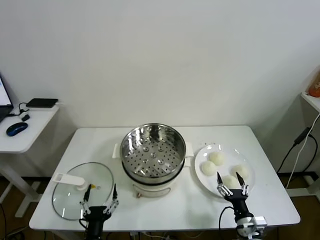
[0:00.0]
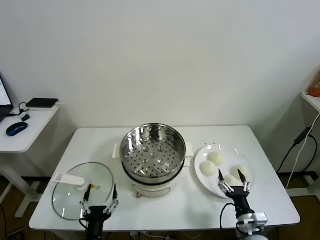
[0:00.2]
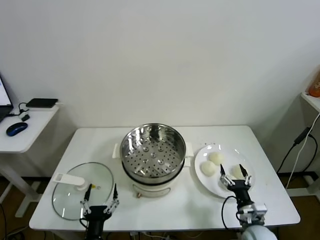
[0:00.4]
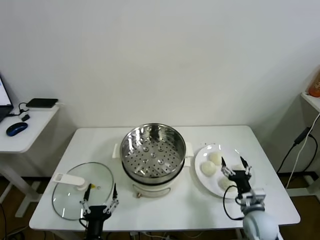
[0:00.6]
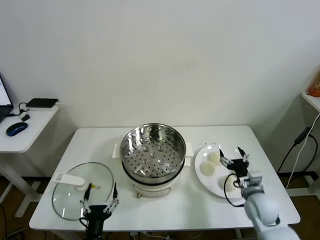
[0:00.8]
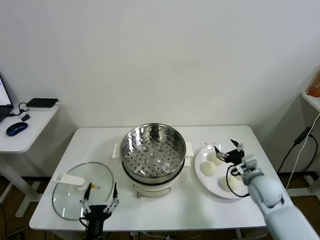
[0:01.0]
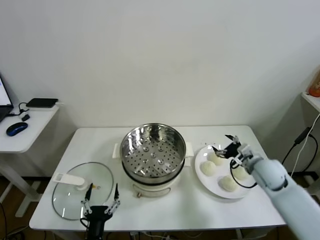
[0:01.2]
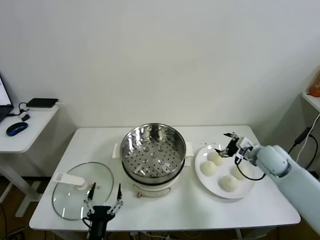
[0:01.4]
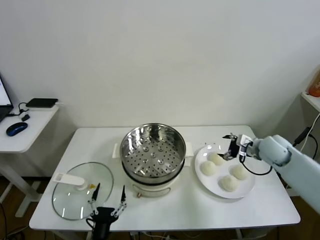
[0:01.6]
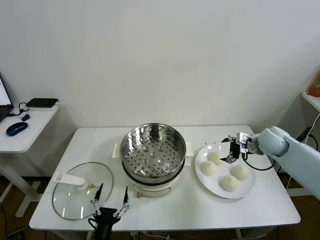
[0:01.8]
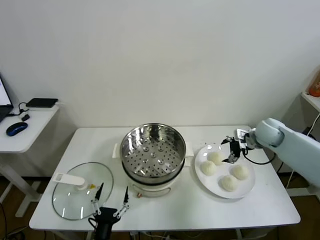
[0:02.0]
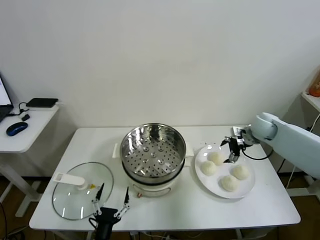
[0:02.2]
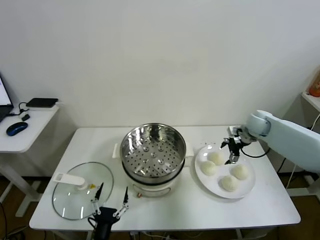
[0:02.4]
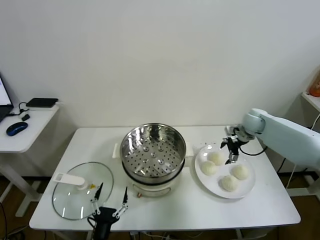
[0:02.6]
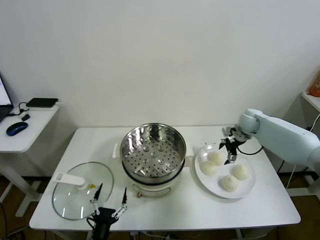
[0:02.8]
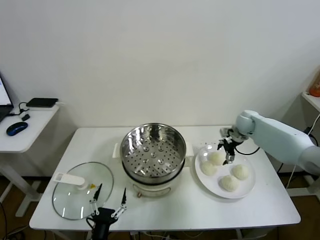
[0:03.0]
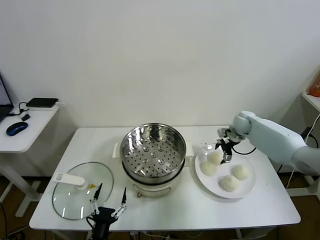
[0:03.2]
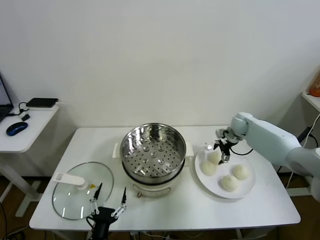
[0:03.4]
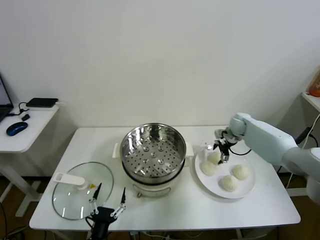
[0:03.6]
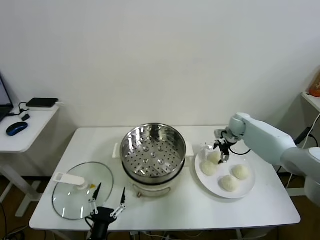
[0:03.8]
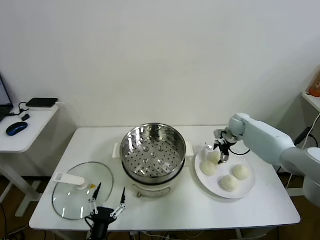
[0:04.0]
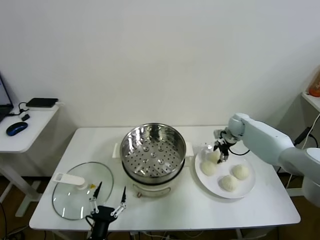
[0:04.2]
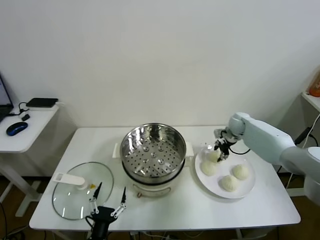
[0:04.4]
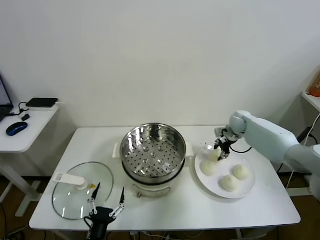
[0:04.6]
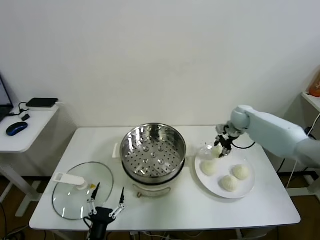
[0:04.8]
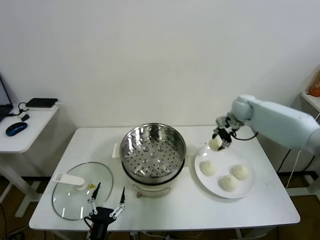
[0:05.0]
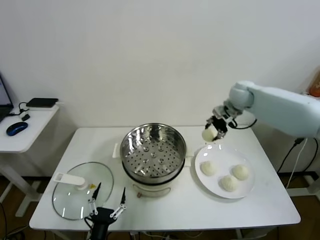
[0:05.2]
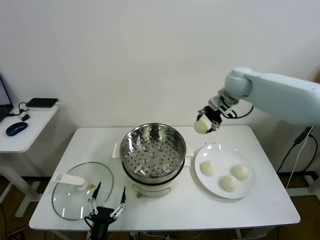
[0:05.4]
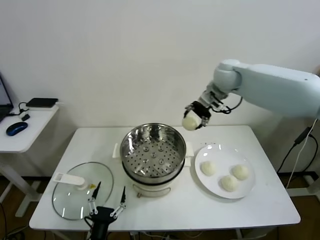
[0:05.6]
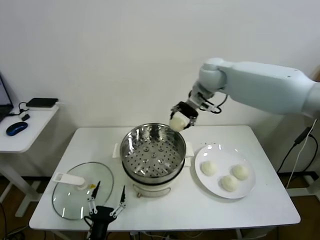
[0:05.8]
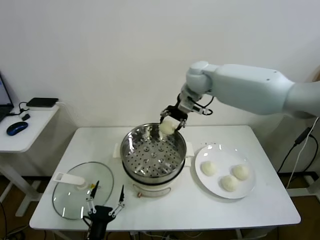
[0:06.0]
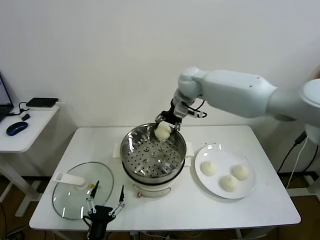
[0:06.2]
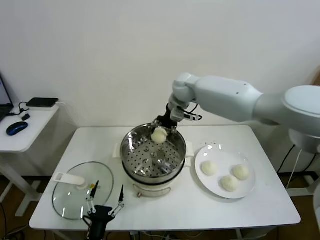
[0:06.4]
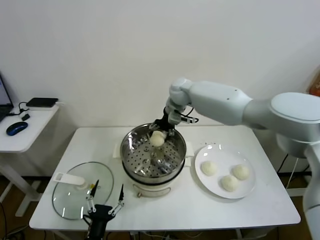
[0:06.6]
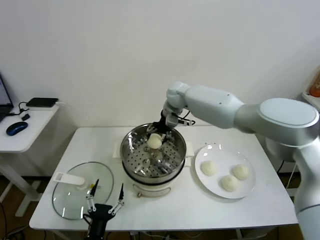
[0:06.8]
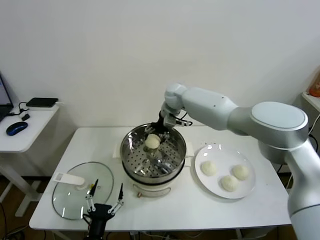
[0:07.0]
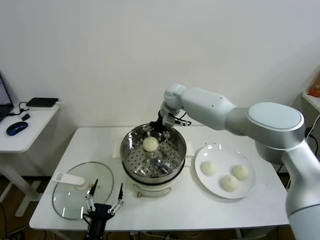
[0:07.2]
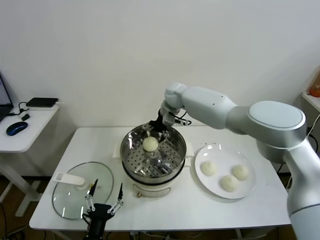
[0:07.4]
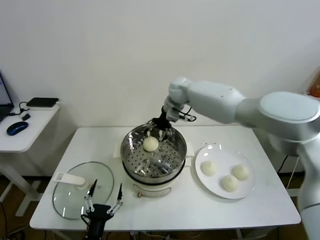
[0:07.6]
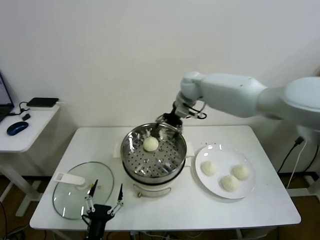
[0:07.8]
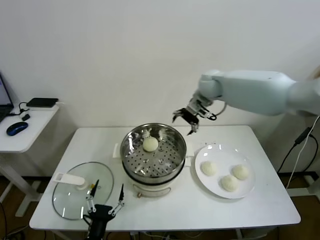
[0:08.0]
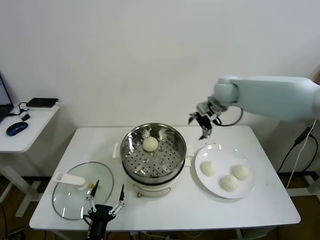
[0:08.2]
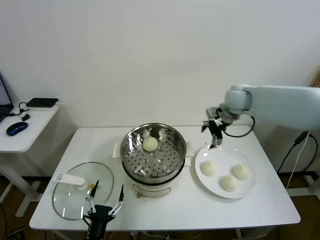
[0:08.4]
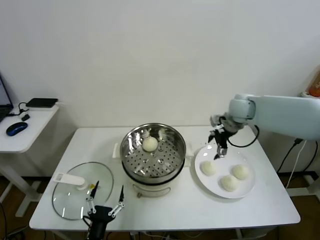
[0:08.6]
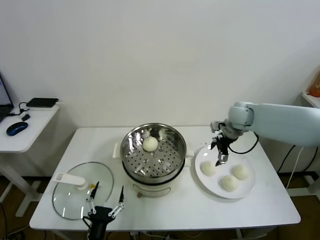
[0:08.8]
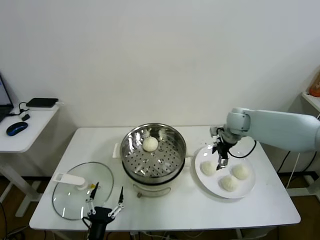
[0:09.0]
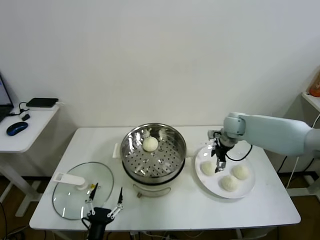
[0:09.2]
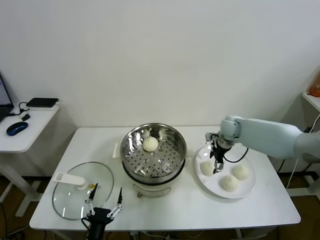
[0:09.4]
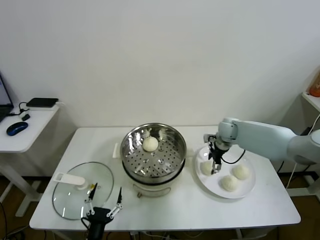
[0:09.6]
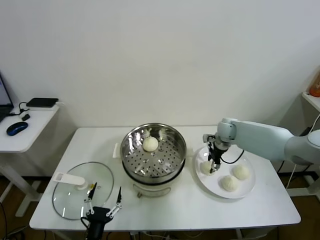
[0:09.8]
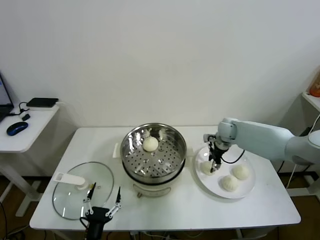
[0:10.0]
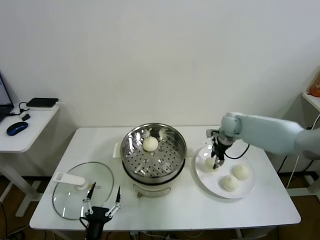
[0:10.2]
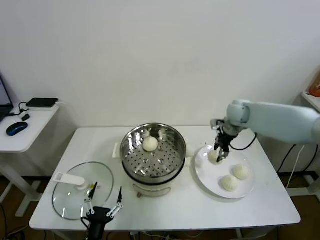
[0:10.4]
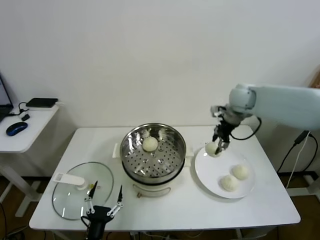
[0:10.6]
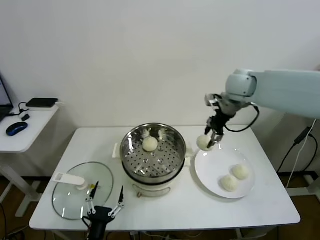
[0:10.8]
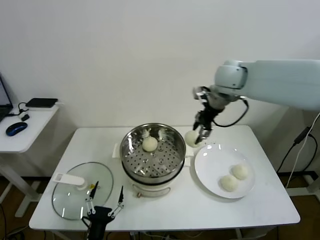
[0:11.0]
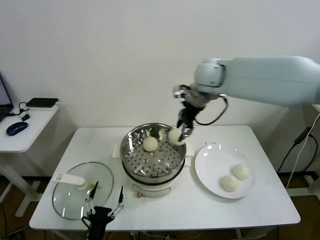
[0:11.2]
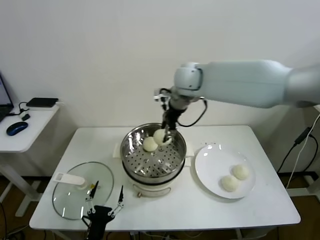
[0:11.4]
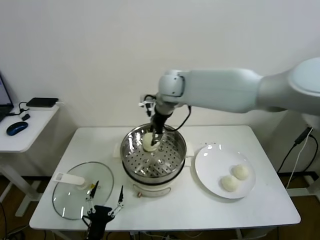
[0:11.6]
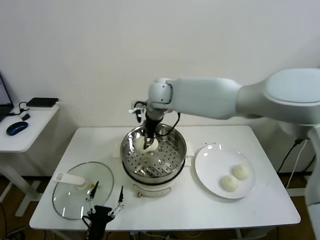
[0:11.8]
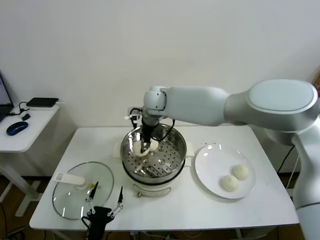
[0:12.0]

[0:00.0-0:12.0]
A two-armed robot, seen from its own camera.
Task of the whole recording: take steamed baozi put them in steamer.
Step, 0:00.0 to 0:04.4: Grasp the baozi in the plate with right gripper.
Step, 0:04.6 to 0:07.2: Place the baozi on the steamer with right gripper.
Step, 0:07.4 to 0:09.8: Grasp the baozi in the plate with right gripper.
0:01.6 to 0:03.0: The right gripper is displaced forward by about 15 cm.
0:03.0 to 0:04.4: The right gripper closes its fingers.
0:04.4 to 0:06.0: The right gripper travels to the left and upward by approximately 30 cm, and opens its fingers.
0:06.0 to 0:07.6: The right gripper opens.
0:07.6 to 0:09.0: The right gripper shifts about 25 cm to the right and downward.
0:09.0 to 0:10.4: The right gripper heads upward, covering approximately 5 cm, and closes.
0:10.4 to 0:12.0: The right gripper moves to the left, approximately 30 cm.

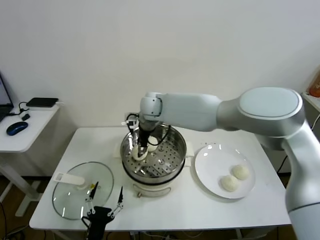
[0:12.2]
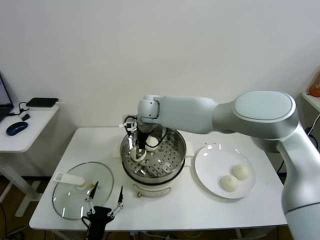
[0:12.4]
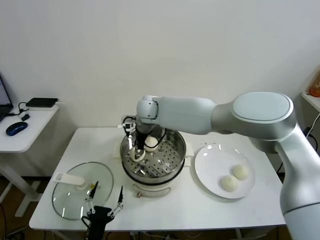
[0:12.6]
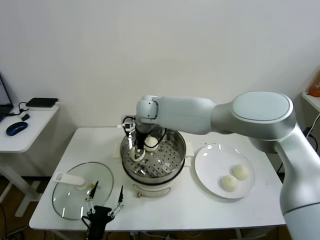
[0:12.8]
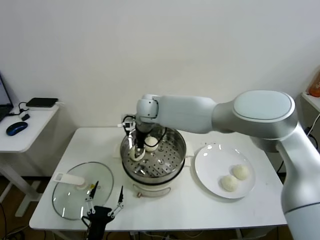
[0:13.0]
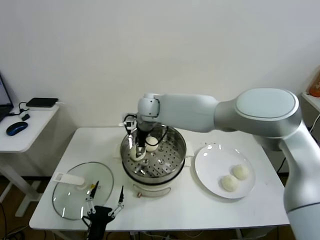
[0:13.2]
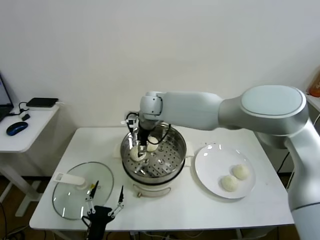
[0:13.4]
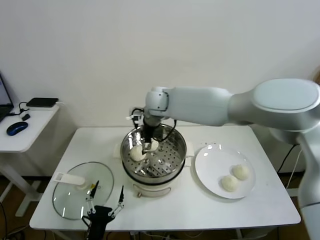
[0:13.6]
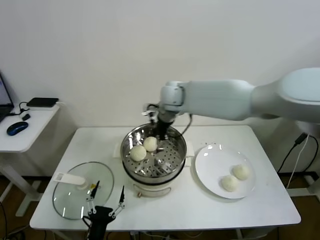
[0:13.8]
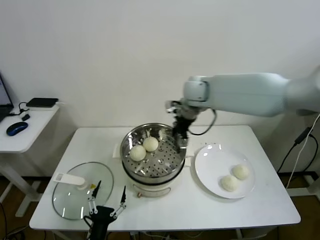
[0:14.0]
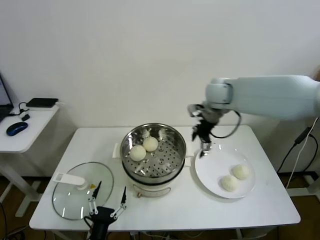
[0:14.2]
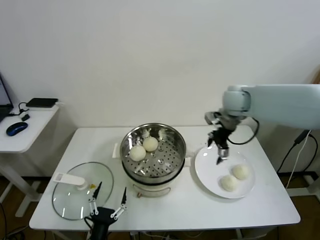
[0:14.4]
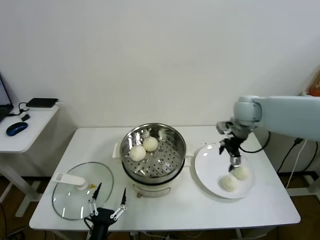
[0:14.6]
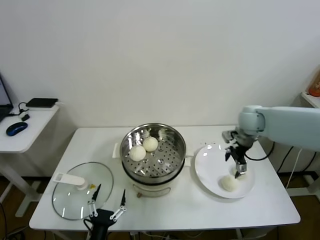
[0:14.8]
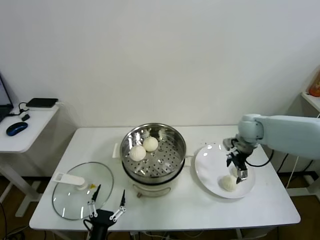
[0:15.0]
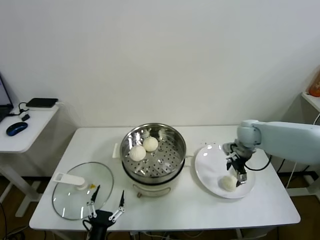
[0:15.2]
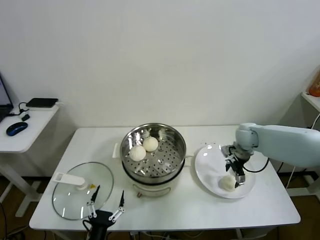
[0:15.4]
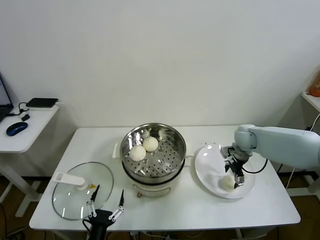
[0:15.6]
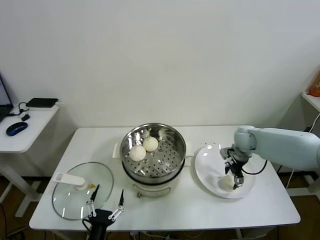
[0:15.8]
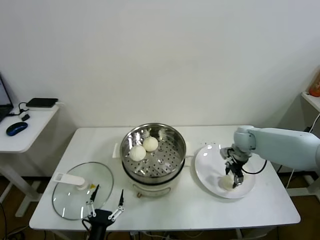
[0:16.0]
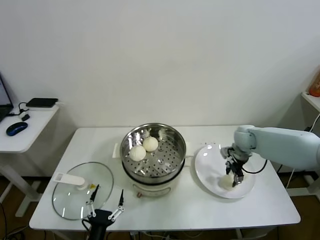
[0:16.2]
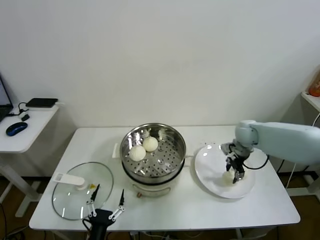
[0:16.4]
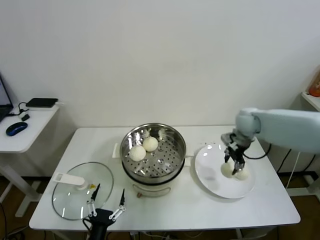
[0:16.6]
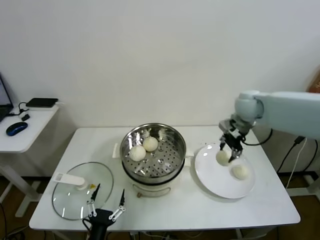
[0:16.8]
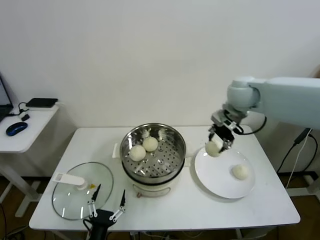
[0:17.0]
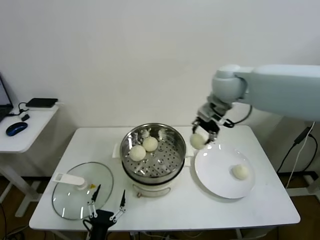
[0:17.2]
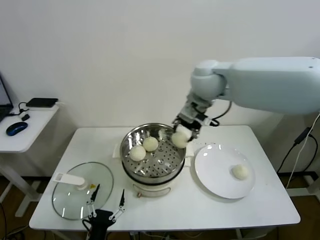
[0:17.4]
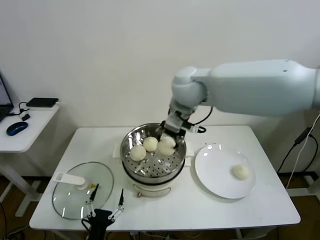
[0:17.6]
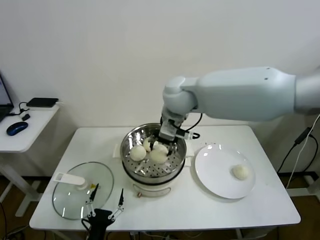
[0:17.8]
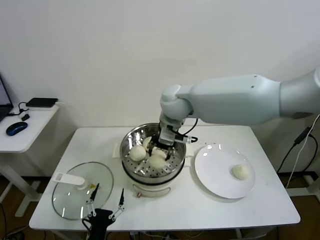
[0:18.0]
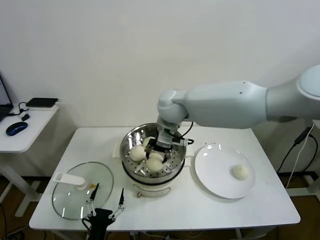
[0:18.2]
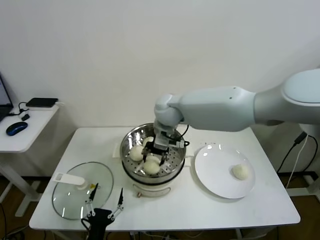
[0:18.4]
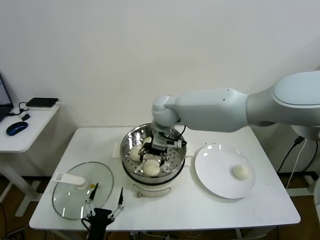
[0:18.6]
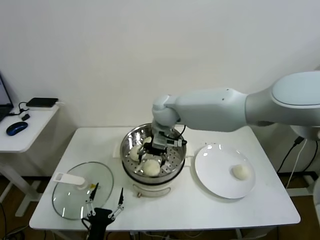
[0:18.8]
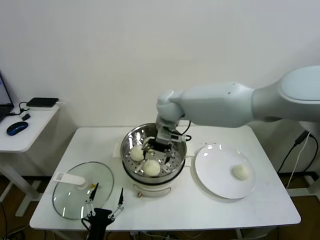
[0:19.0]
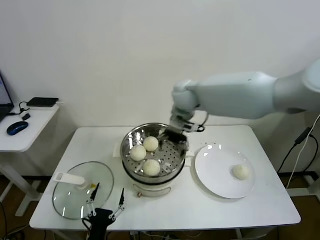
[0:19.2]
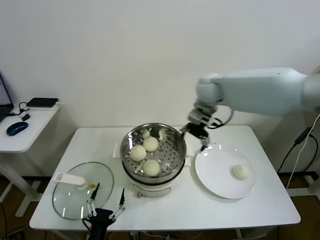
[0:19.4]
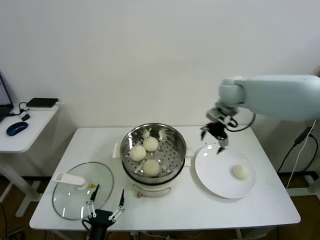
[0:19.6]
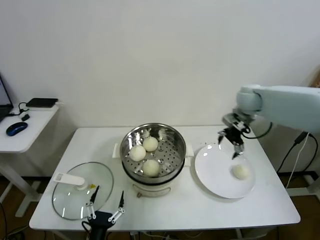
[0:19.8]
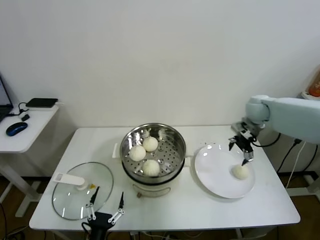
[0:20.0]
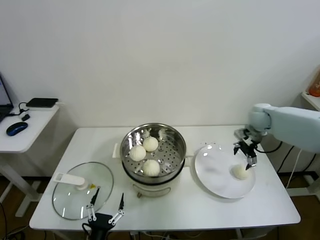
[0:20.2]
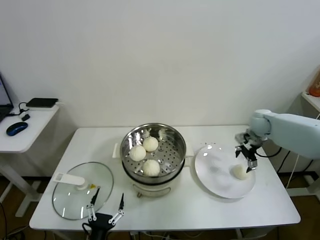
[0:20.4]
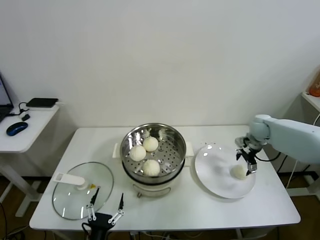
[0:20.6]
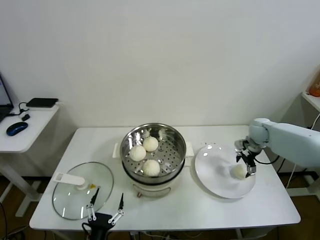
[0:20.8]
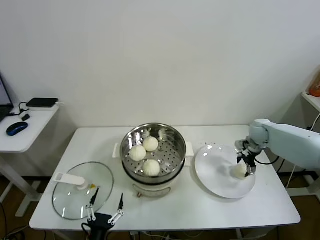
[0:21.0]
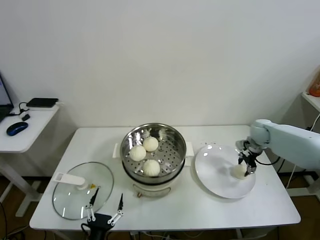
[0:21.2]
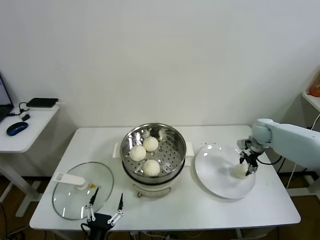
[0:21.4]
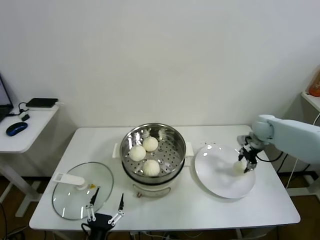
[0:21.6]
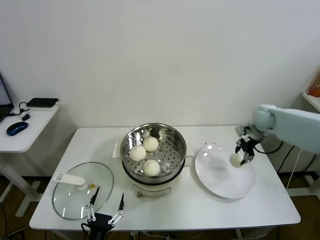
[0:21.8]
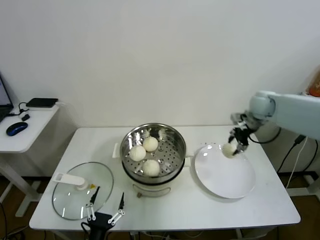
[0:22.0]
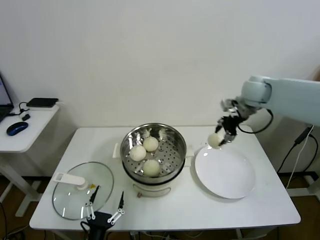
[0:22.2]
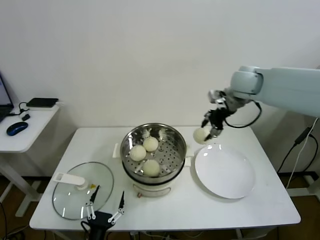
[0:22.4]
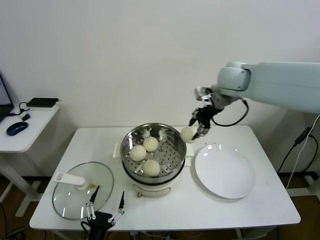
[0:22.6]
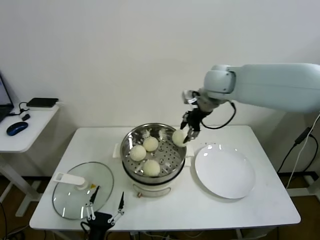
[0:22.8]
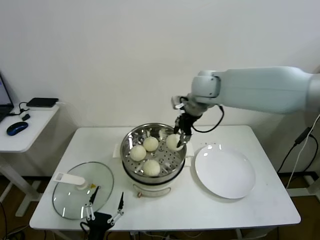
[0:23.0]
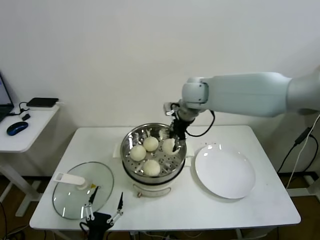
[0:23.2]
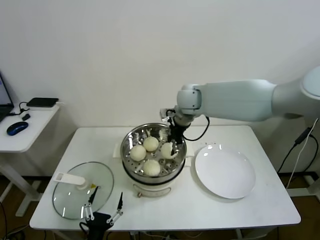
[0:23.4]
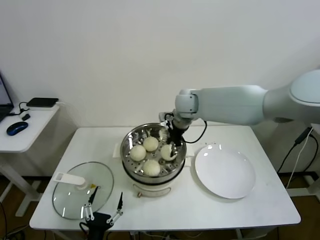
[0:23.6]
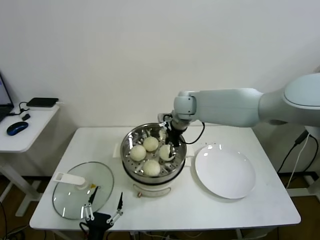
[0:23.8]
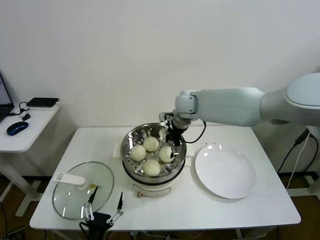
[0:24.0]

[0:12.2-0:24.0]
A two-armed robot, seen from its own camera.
Task of the whole recording: take steamed baozi put them in steamer.
Step, 0:13.4 to 0:16.0: Grasp the baozi in the plate with right gripper.
Step, 0:16.2 to 0:18.6: Place the baozi on the steamer with right gripper.
Step, 0:18.8 to 0:21.2: Grasp the baozi in the plate with right gripper.
0:12.2 to 0:13.6: The right gripper opens its fingers.
0:13.6 to 0:15.2: The right gripper goes about 35 cm to the right.
0:15.2 to 0:16.6: The right gripper is displaced upward by roughly 5 cm, and closes.
0:16.6 to 0:18.2: The right gripper heads to the left, covering about 30 cm.
0:18.2 to 0:19.6: The right gripper travels to the right by roughly 20 cm, and opens.
0:19.6 to 0:21.0: The right gripper is displaced downward and to the right by about 25 cm.
0:21.0 to 0:22.6: The right gripper shifts about 30 cm upward and to the left, and closes up.
0:22.6 to 0:24.0: The right gripper is displaced to the left and downward by approximately 15 cm, and opens its fingers.
